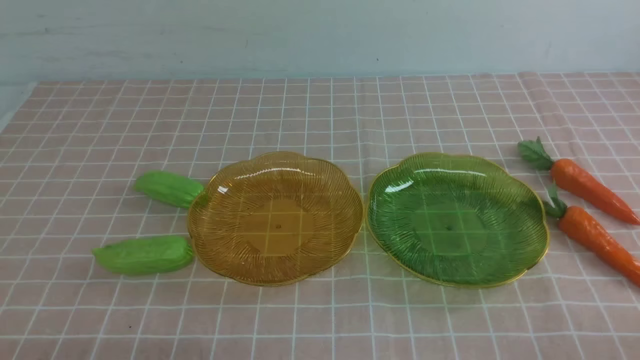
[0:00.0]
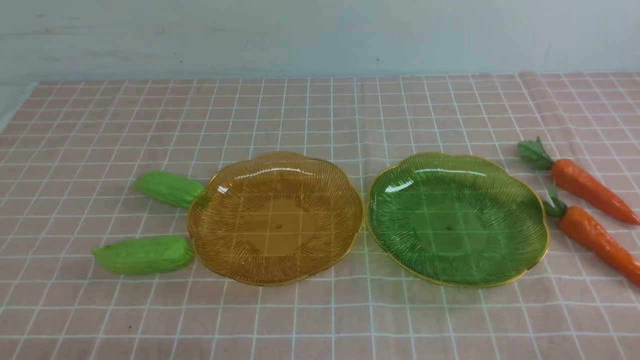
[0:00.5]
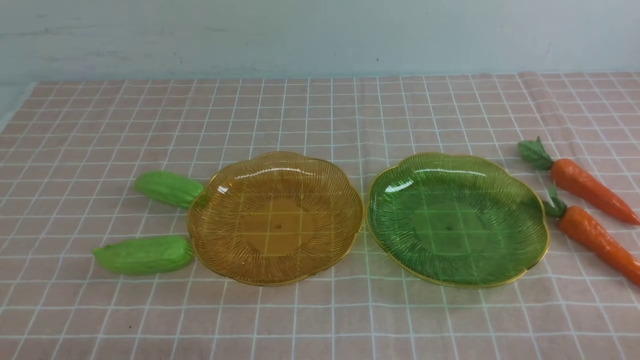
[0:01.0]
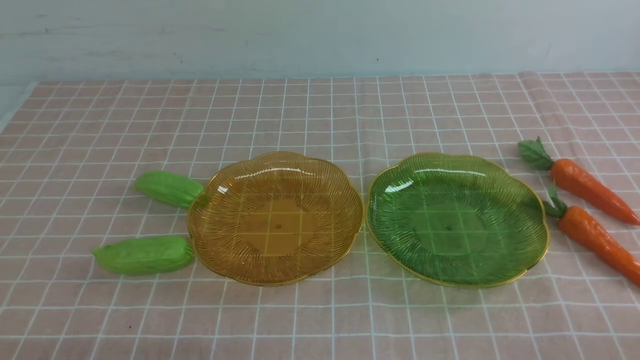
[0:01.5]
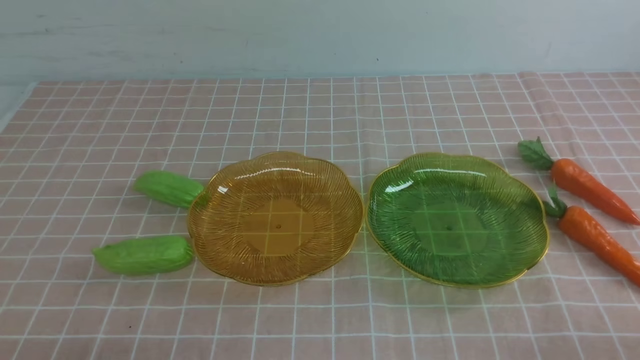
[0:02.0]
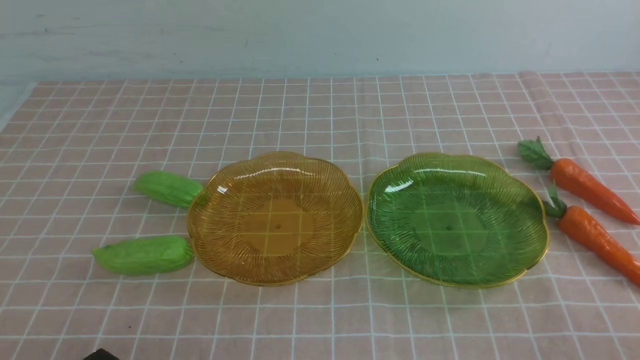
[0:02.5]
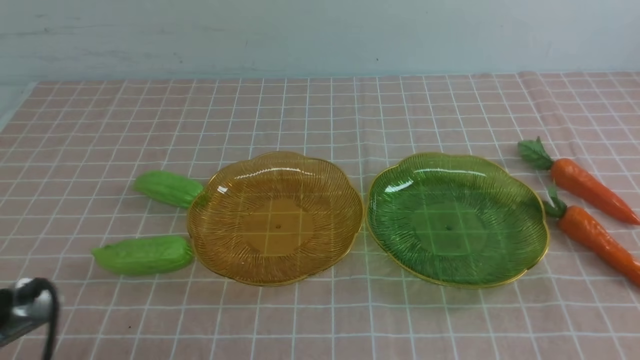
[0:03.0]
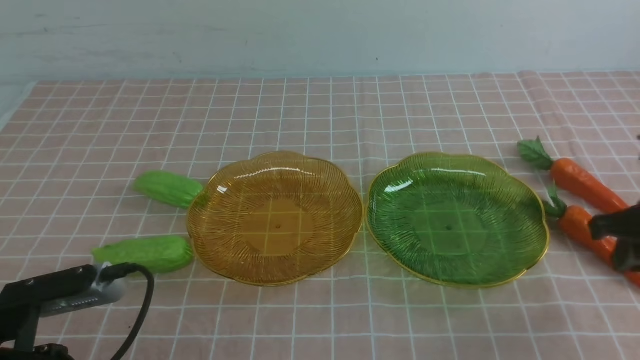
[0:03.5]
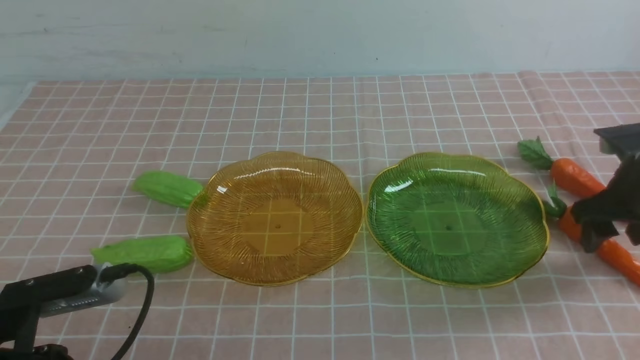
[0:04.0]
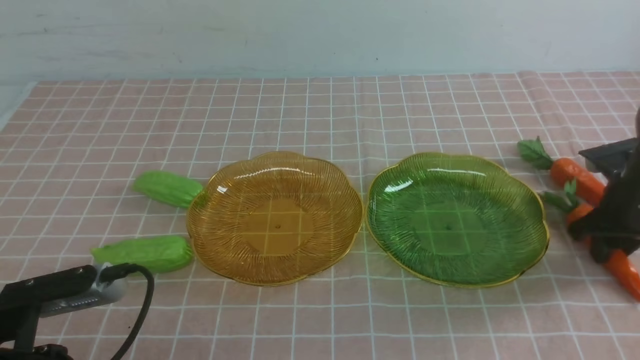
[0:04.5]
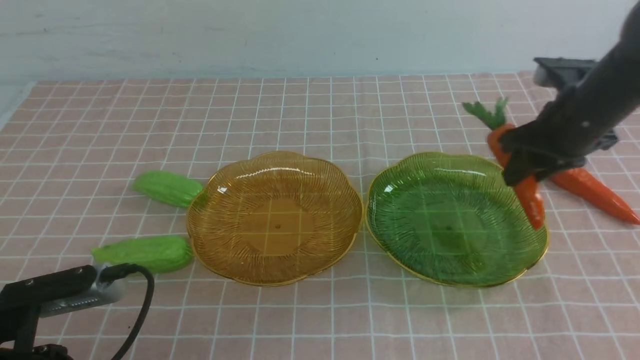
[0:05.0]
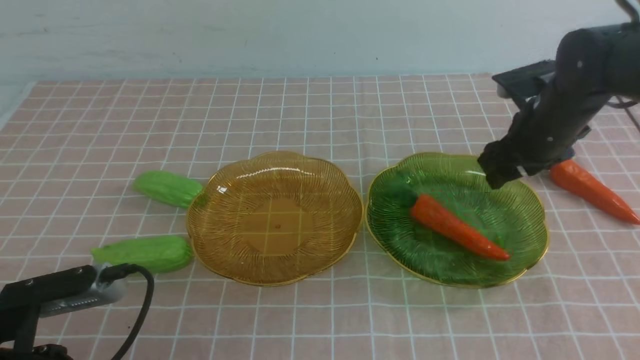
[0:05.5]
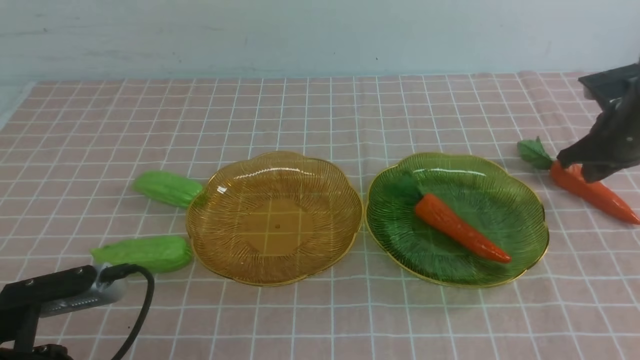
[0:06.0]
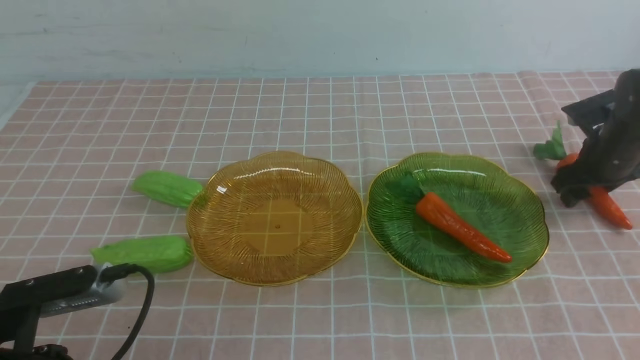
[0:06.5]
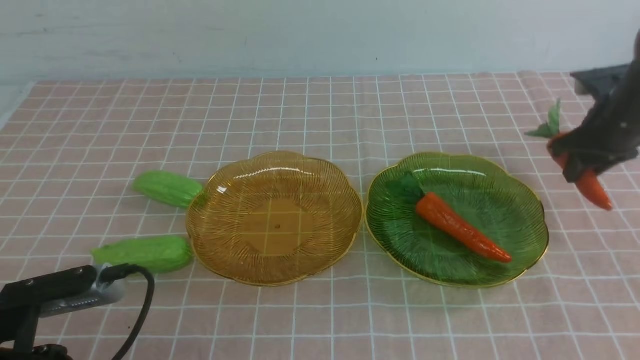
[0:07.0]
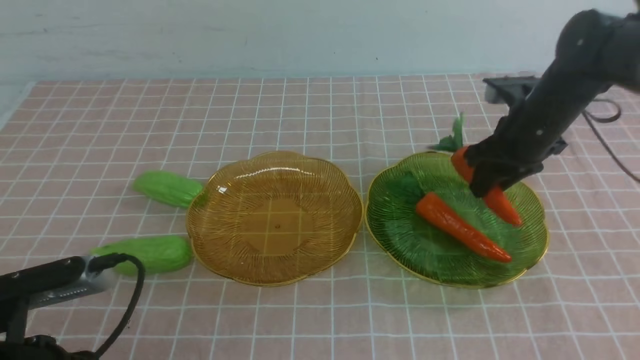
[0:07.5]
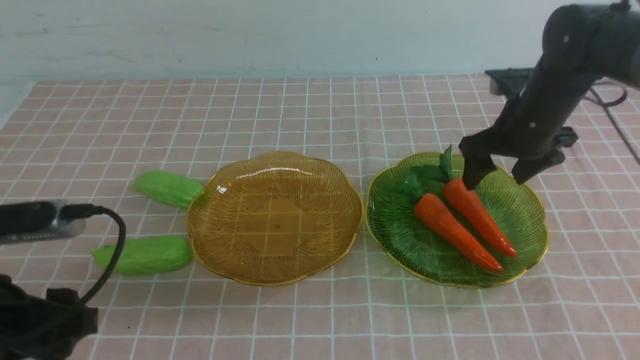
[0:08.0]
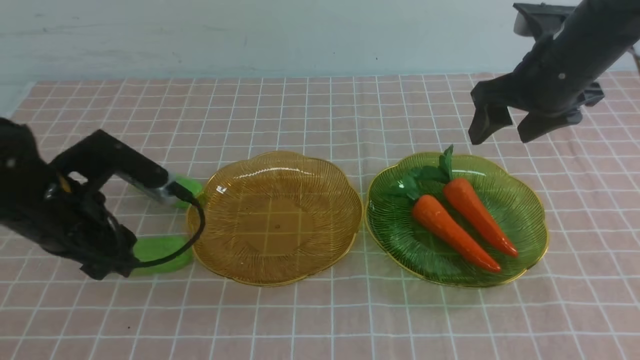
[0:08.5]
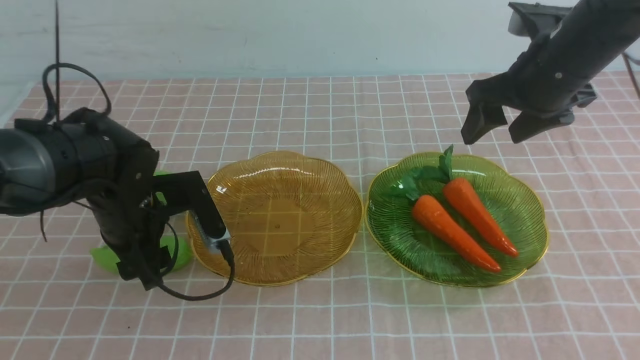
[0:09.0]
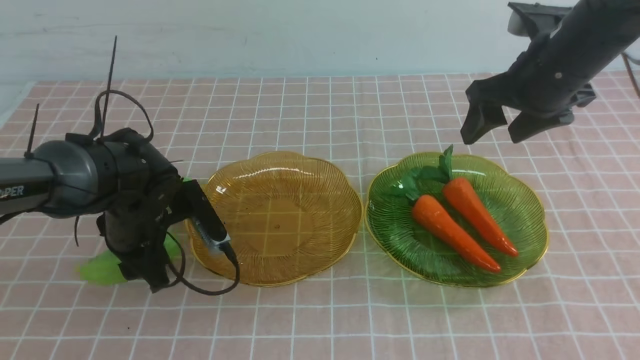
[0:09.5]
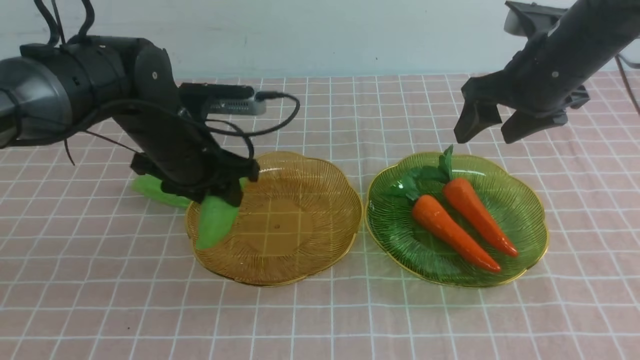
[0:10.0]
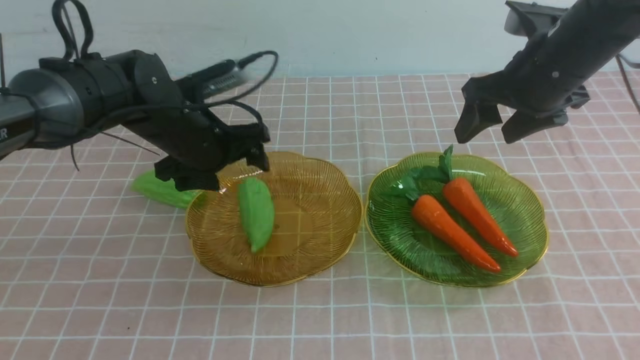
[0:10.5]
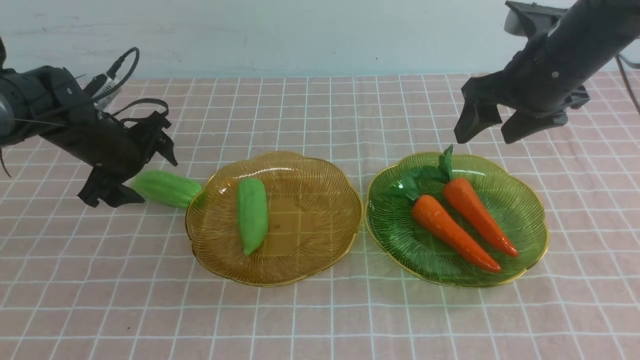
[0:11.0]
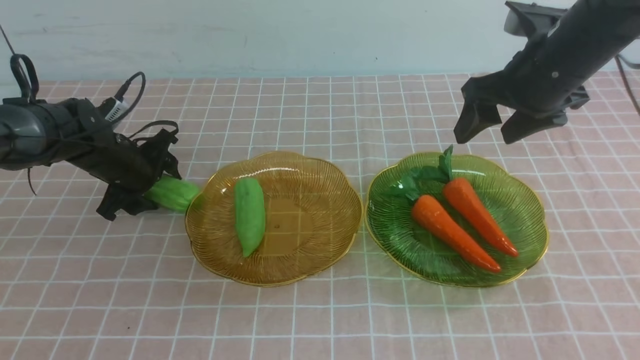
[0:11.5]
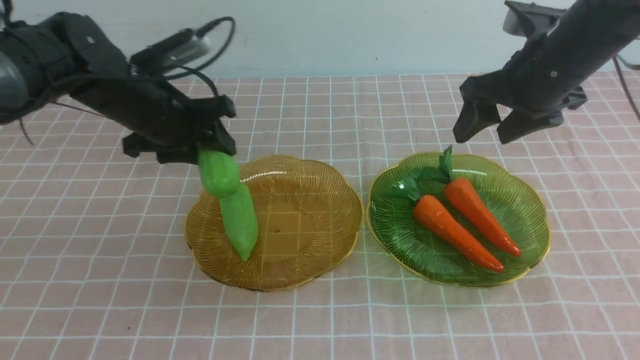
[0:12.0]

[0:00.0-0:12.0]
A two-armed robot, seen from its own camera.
Step, 0:00.0 to 0:07.5: use the right arm to grab a carrot and put it into the right plate.
0:02.0 to 0:04.0: The right gripper goes roughly 30 cm forward, and opens its fingers. The left gripper travels forward and upward by about 10 cm.
0:04.0 to 0:06.0: The right gripper moves forward, roughly 10 cm, and closes up.
0:06.0 to 0:08.0: The left gripper is displaced forward by approximately 10 cm, and opens. Meanwhile the right gripper is displaced to the left and upward by approximately 15 cm, and opens up.
0:08.0 to 0:10.0: The left gripper moves forward and to the right, roughly 20 cm.
0:10.0 to 0:12.0: The left gripper travels to the left and back again, some 10 cm each way. Meanwhile the right gripper closes.

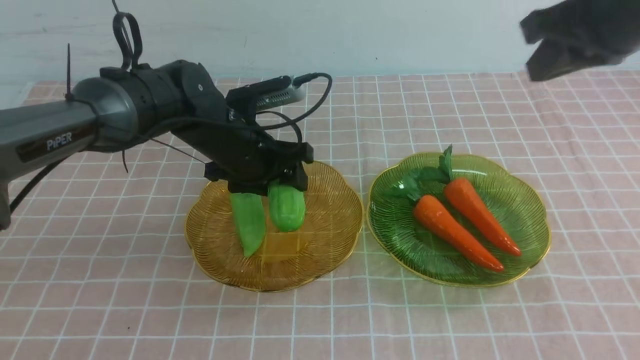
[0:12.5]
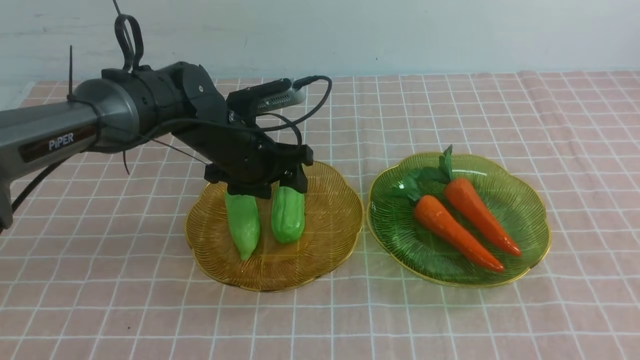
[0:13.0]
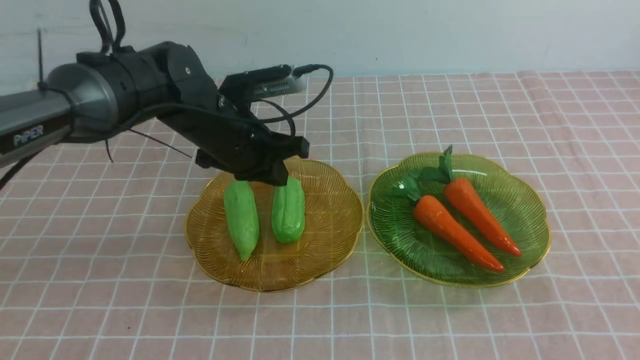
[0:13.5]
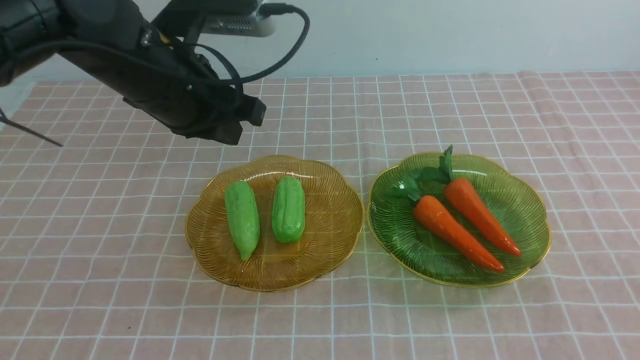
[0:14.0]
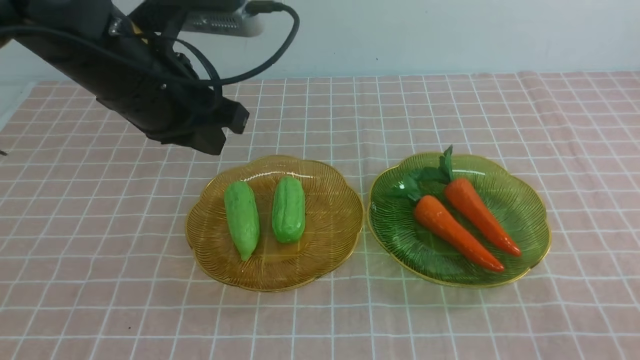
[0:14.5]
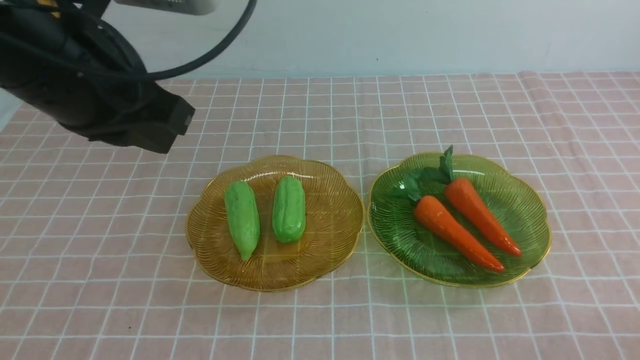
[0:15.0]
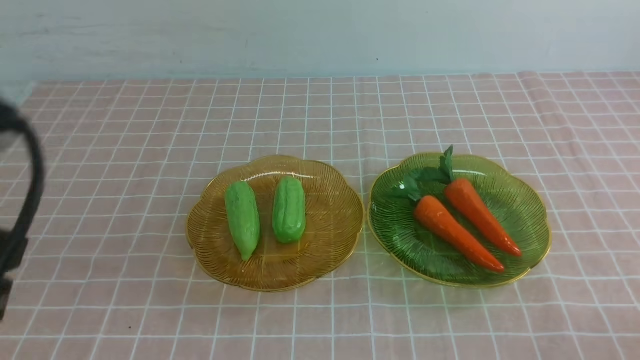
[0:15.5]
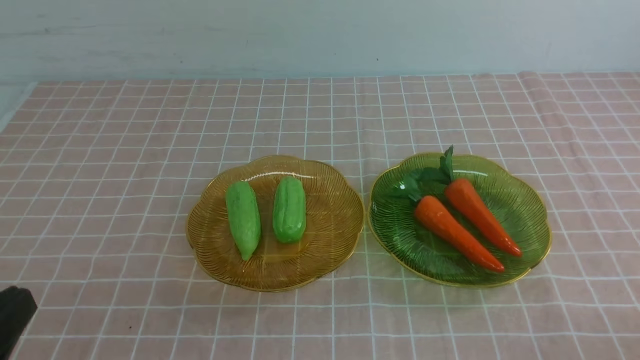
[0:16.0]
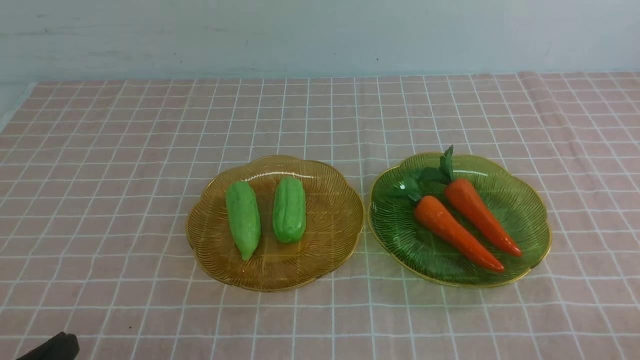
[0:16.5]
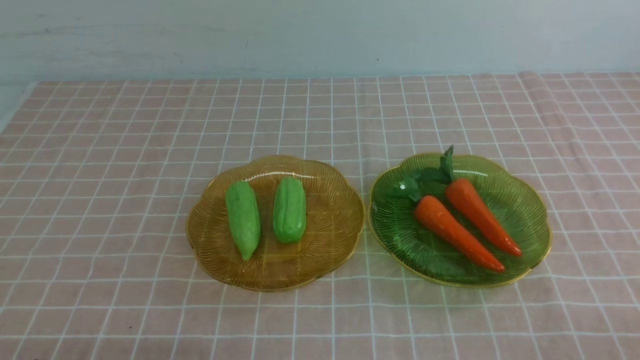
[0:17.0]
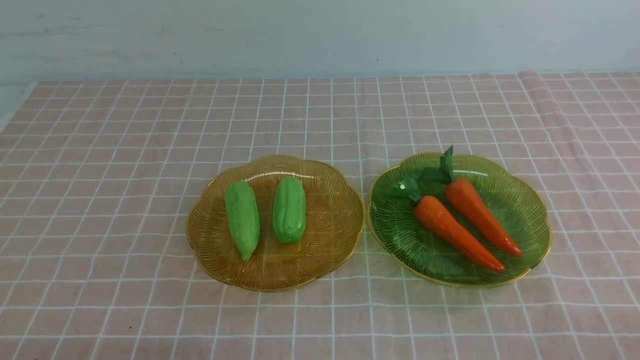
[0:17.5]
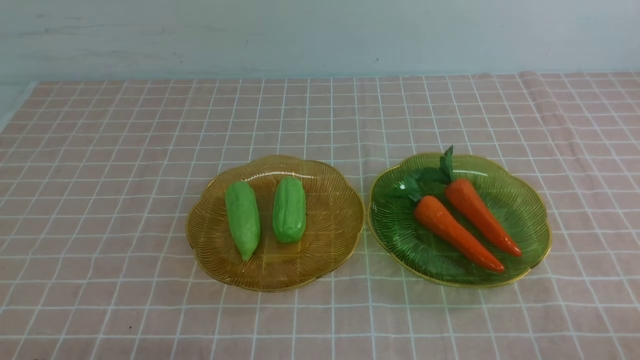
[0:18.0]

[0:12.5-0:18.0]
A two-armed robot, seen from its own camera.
0:12.5 to 0:14.5: The right gripper shifts roughly 30 cm backward and downward, while the left gripper is displaced upward and backward by about 20 cm, and closes up.
0:14.5 to 0:16.0: The left gripper goes approximately 30 cm backward and downward, while the right gripper moves downward, approximately 5 cm.
0:16.0 to 0:18.0: The left gripper is displaced downward by about 10 cm.

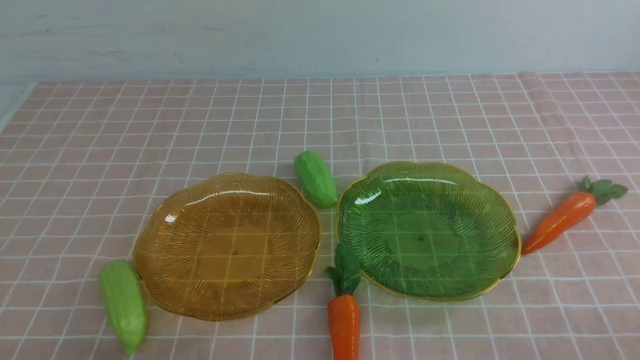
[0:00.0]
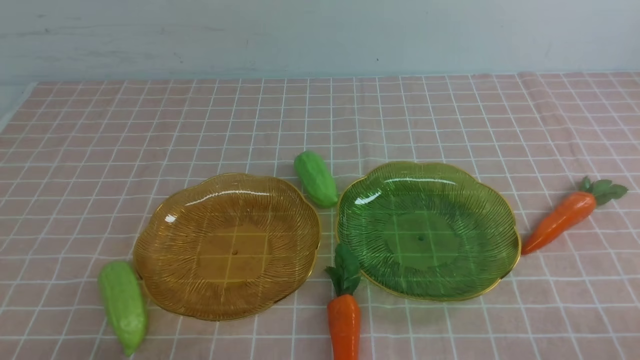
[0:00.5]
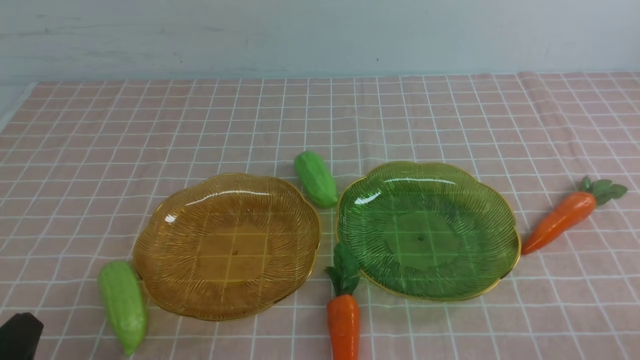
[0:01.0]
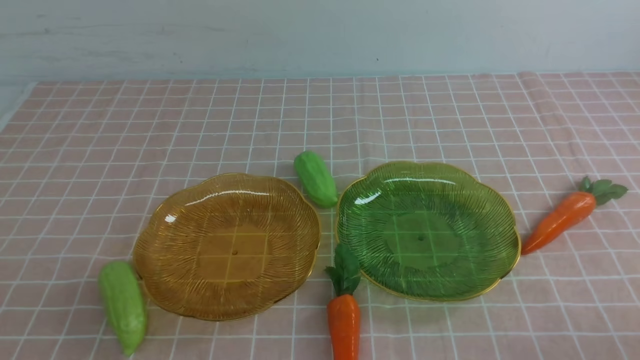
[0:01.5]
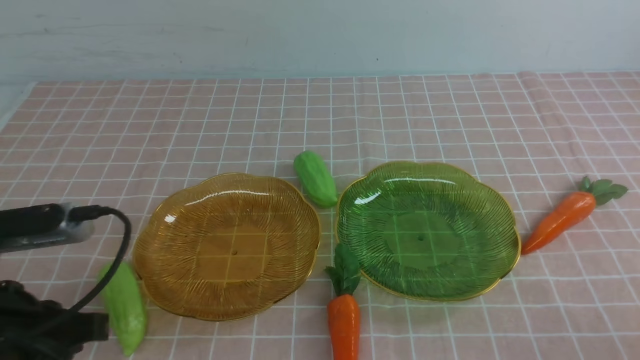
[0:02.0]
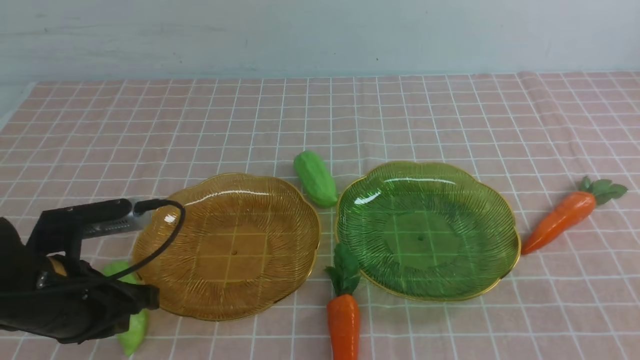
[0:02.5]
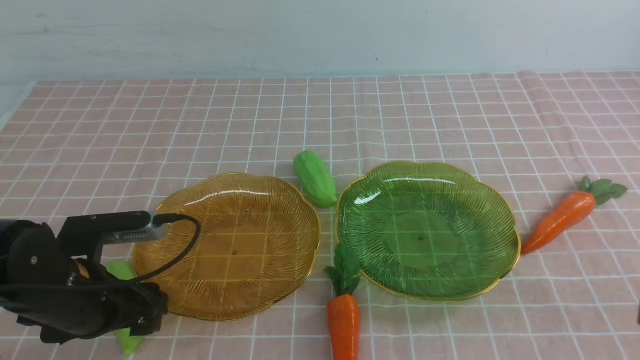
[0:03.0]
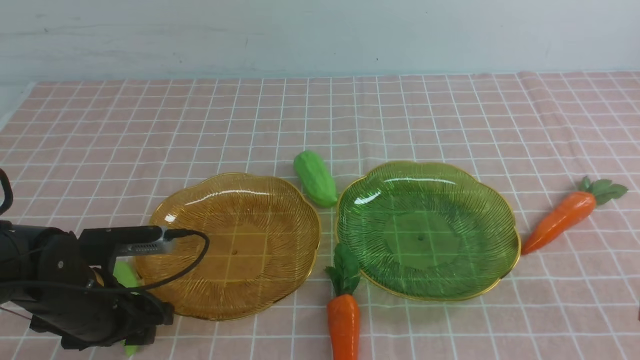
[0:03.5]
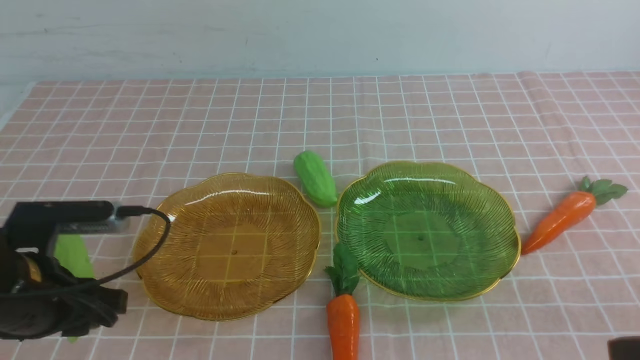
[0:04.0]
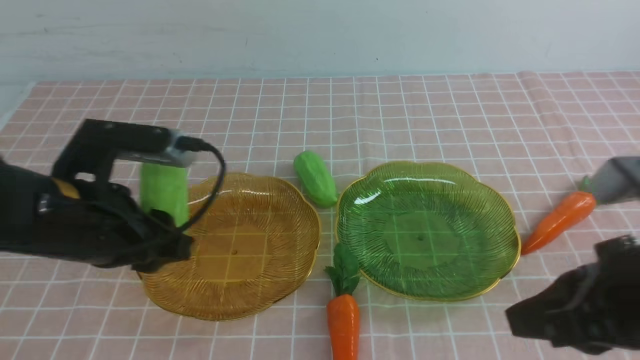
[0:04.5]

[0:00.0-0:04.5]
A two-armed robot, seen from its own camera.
0:00.0 to 0:02.0: The left gripper heads upward and forward, covering approximately 15 cm.
0:02.0 to 0:04.5: The left gripper is displaced forward and to the right by about 10 cm, moves approximately 10 cm downward and comes back, and opens up, while the right gripper heads forward, to the left and upward, covering some 15 cm.
